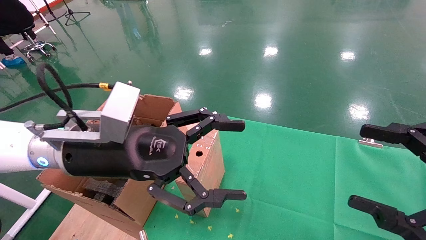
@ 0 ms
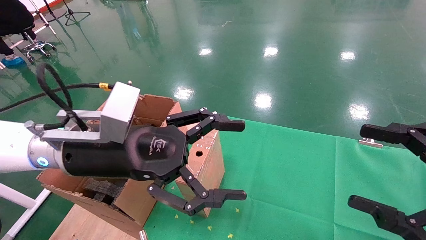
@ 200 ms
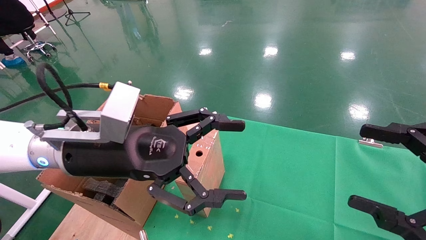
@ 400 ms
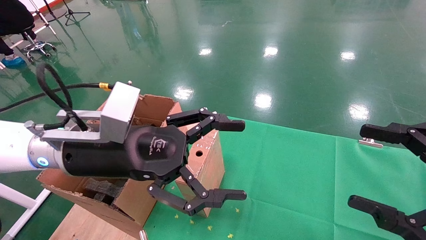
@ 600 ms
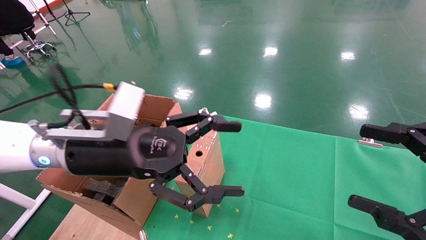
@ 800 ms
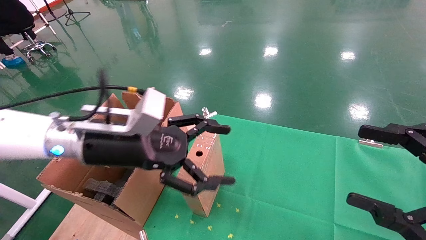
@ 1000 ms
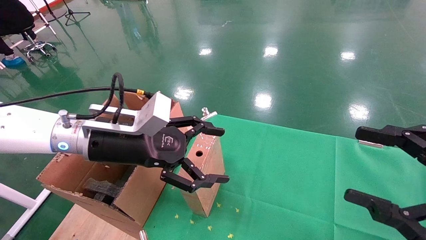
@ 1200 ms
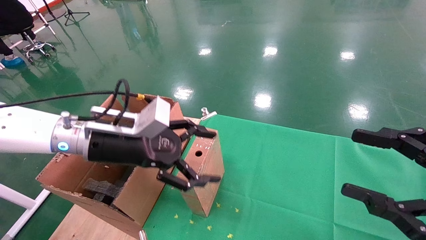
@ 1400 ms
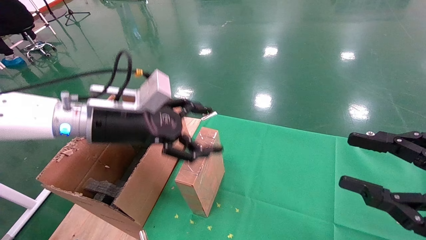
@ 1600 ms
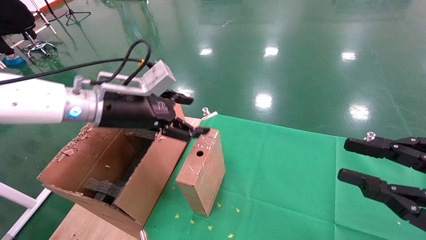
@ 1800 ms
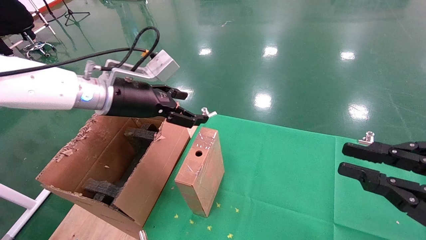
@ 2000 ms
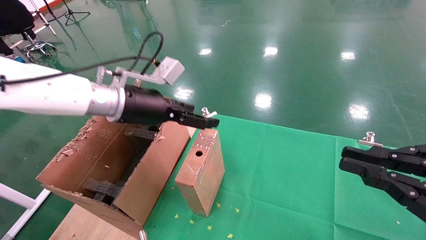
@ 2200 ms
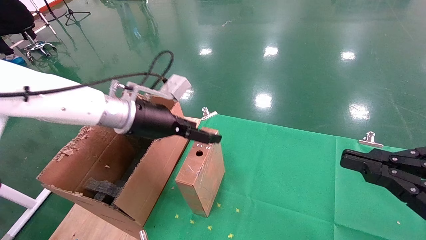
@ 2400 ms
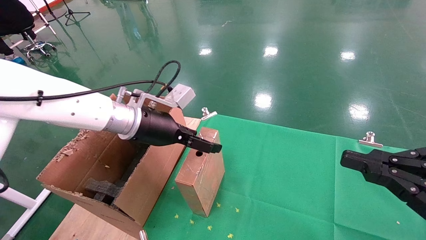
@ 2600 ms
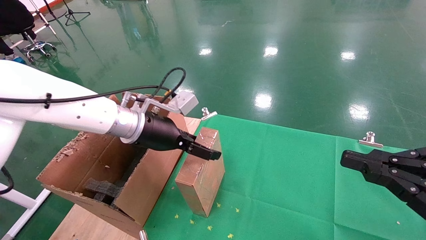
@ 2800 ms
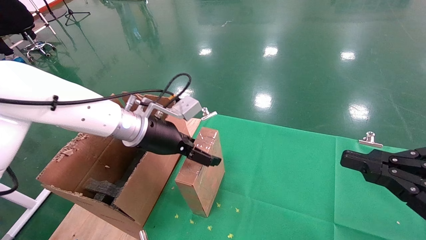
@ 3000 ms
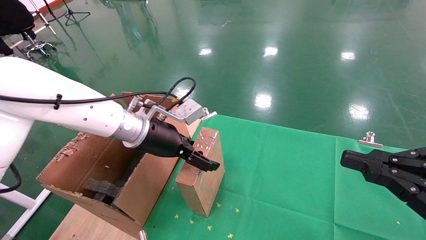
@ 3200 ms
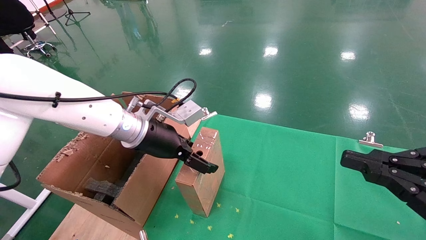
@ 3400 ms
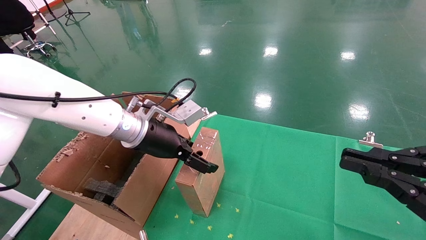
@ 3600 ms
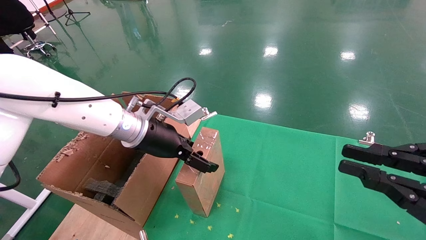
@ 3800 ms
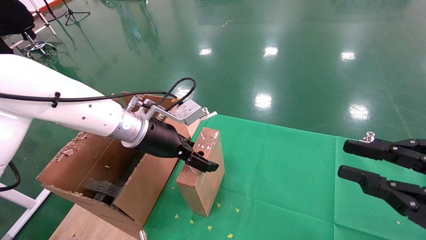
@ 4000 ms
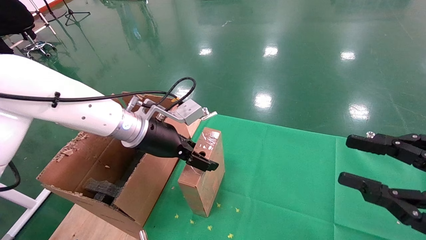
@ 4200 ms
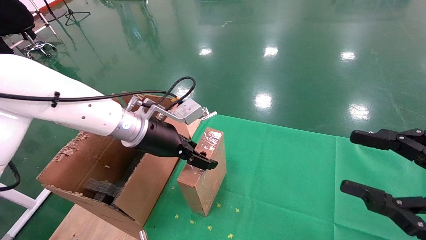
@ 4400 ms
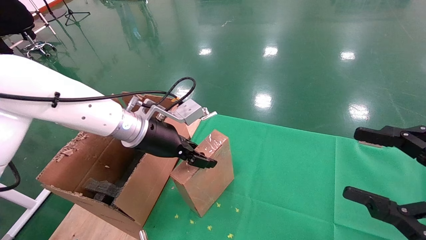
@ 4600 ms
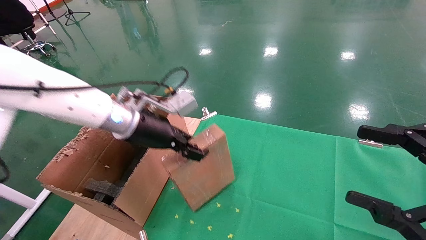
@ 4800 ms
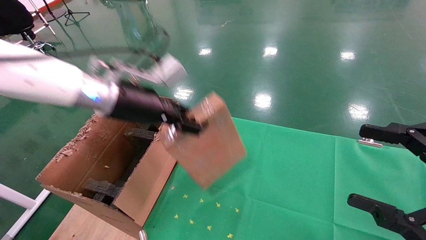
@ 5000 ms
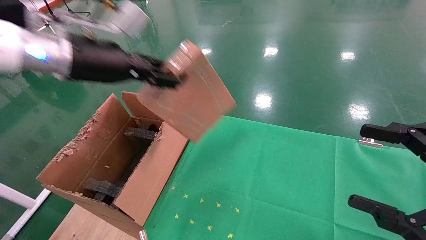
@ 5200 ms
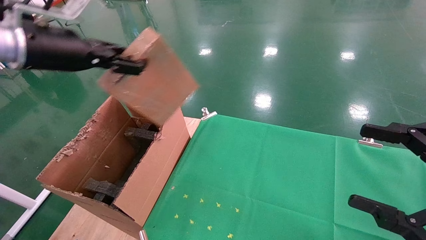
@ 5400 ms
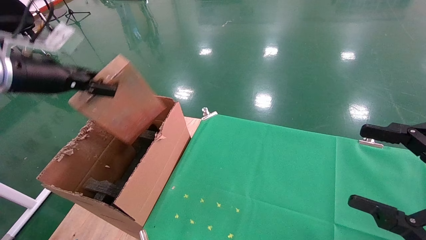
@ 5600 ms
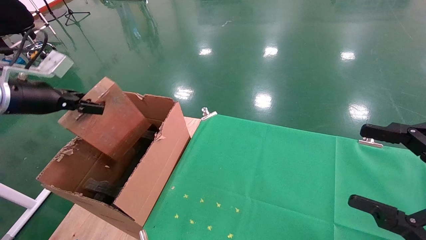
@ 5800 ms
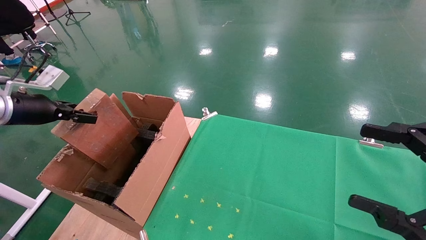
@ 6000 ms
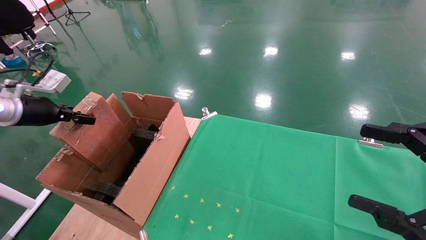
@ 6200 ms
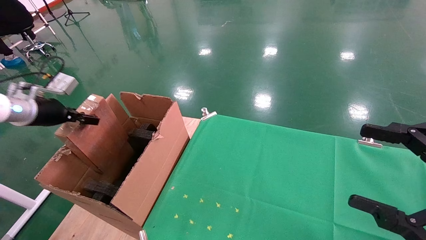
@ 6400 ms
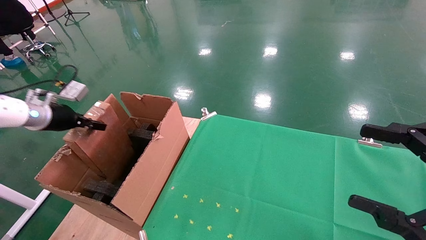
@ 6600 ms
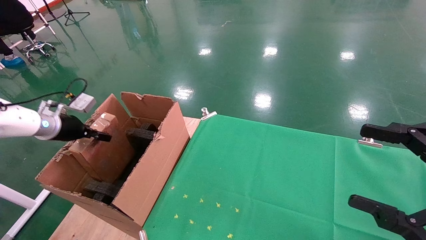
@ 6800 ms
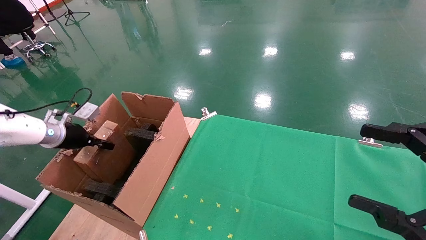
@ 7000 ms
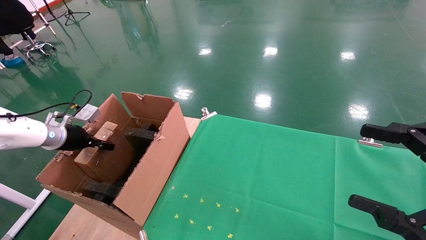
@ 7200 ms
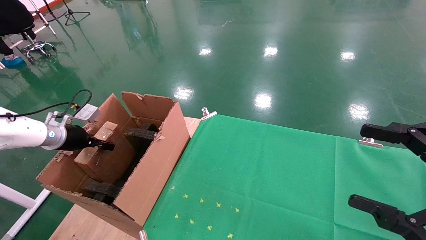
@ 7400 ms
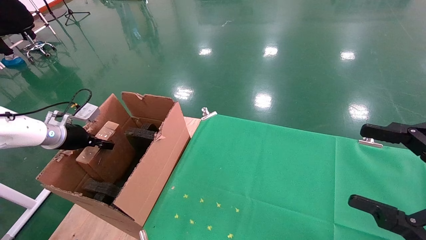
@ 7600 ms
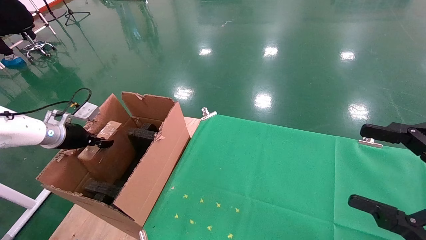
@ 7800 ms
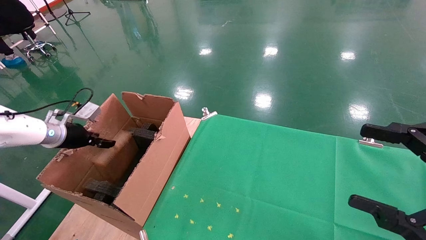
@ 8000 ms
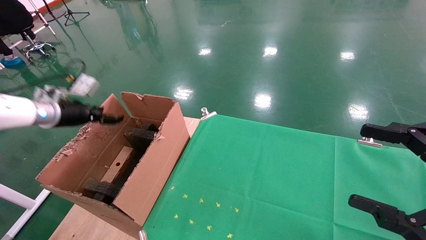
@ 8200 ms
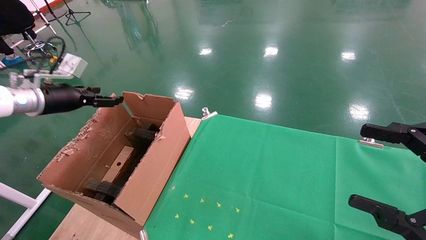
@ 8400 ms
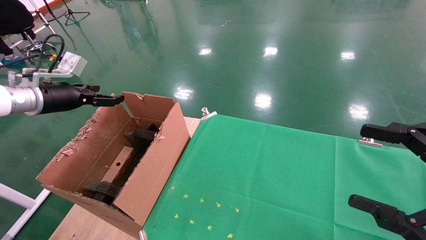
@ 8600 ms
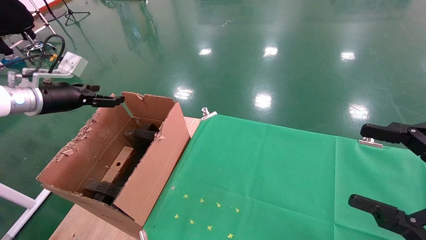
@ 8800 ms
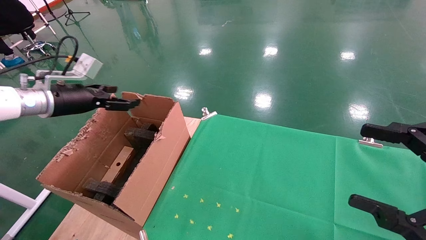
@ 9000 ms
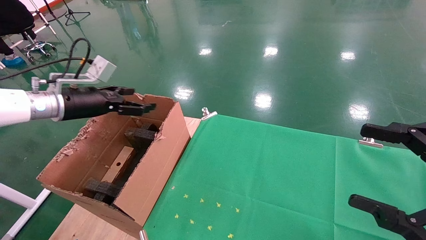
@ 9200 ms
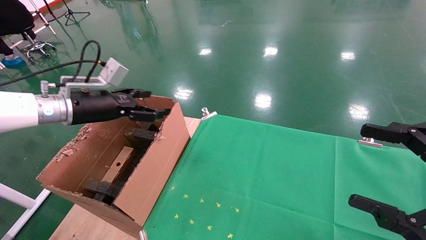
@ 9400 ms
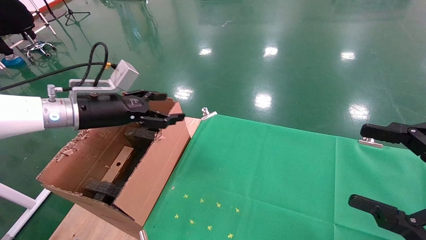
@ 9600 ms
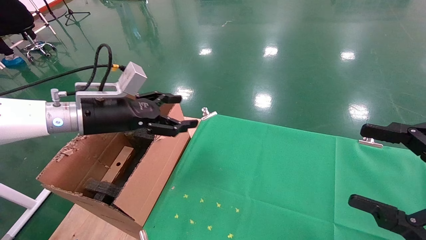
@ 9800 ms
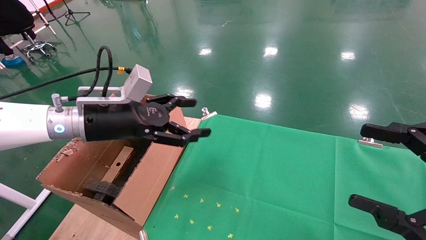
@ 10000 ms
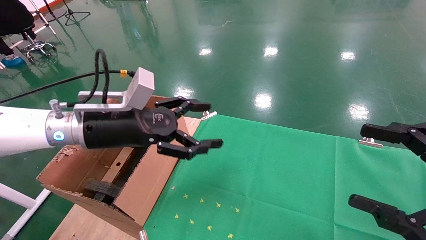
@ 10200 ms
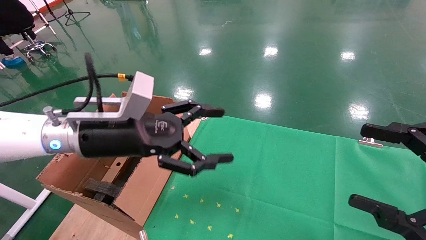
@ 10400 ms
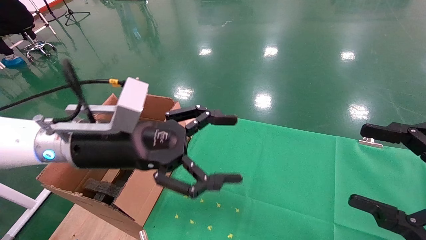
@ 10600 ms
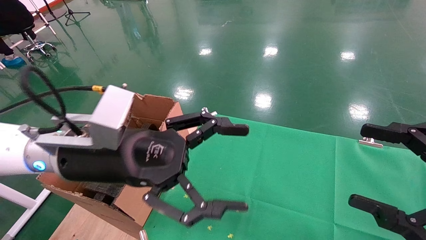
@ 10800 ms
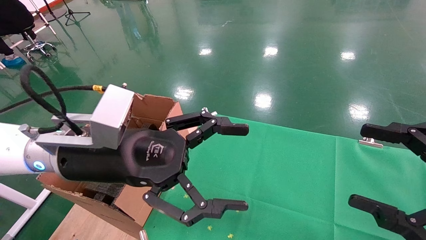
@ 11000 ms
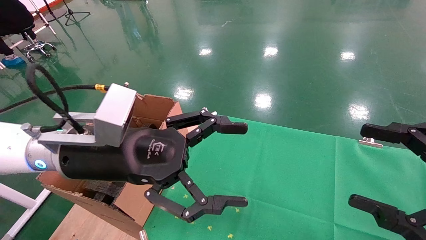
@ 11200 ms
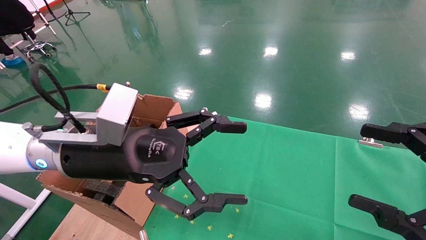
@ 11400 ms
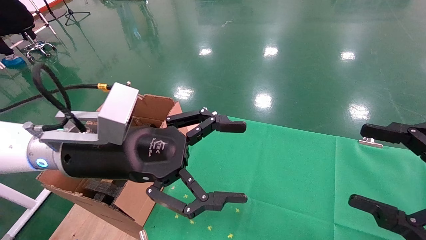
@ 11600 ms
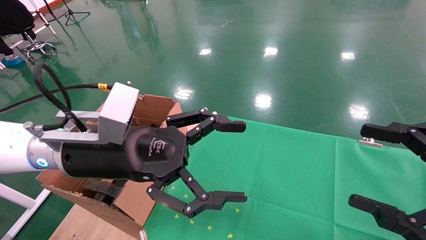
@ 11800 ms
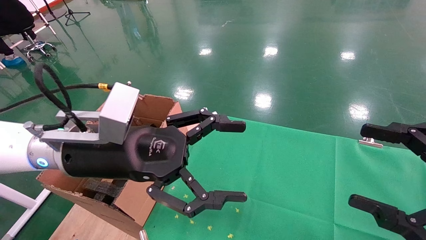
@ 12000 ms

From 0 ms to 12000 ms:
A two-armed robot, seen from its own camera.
Task of the whole recording: using a robotic arm to pick up a cardboard box and palace it the carton.
Step, from 1200 ms to 4600 ms: Pick up the mouse and the power cord paper box.
Step, from 4800 ms to 7800 ms: Place the mouse and the power cord paper box into the container.
From 0 ms to 1600 ms: The left gripper goes roughly 5 cm forward.
From 1600 ms to 3000 ms: The right gripper closes. Meanwhile the left gripper heads forward, covering some 5 cm.
From 3000 ms to 4400 ms: The left gripper closes. Meanwhile the right gripper opens its fingers.
From 4400 ms to 6000 ms: The right gripper opens up; the left gripper heads to the left, covering roughly 30 cm, and closes.
From 6000 ms to 7600 ms: The left gripper travels downward and forward by approximately 15 cm.
From 7600 ms to 9000 ms: The left gripper goes roughly 15 cm upward and to the right, and opens up.
From 9000 ms to 10400 ms: The left gripper travels to the right and backward by about 20 cm.
From 10400 ms to 12000 ms: The grippers stay close to where they were, moving slightly.

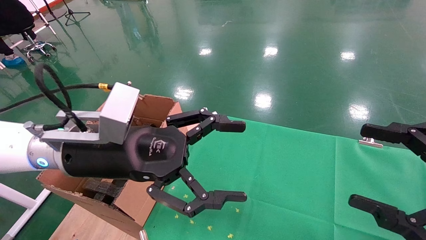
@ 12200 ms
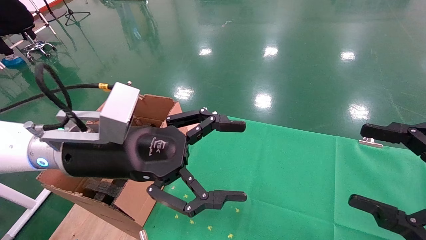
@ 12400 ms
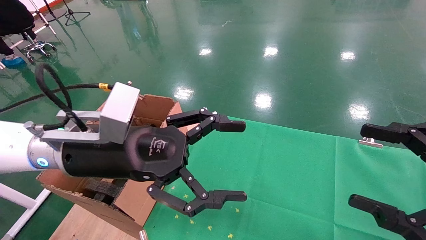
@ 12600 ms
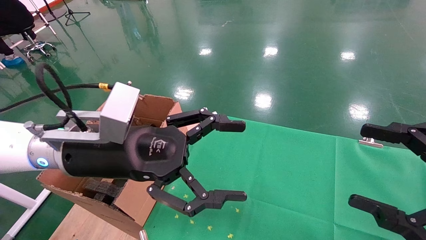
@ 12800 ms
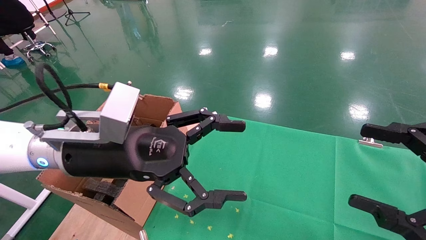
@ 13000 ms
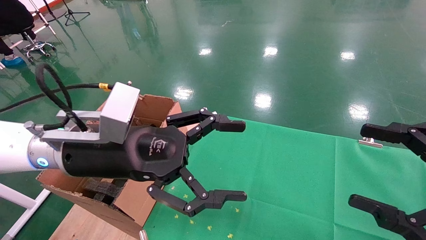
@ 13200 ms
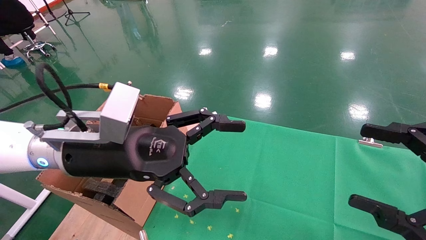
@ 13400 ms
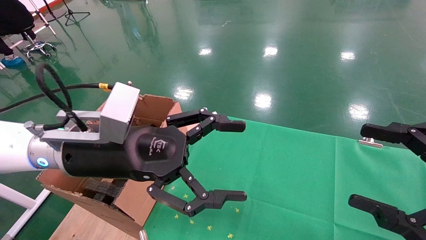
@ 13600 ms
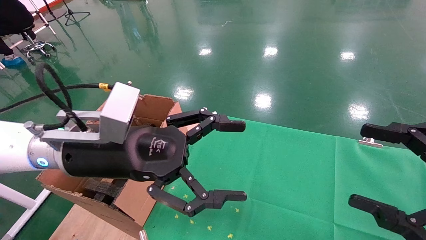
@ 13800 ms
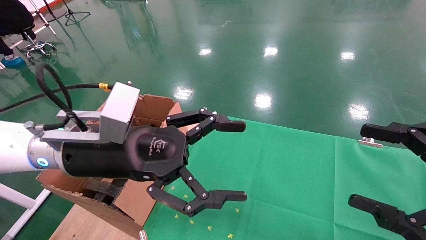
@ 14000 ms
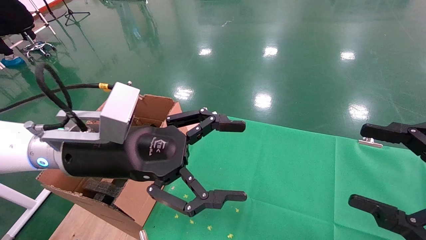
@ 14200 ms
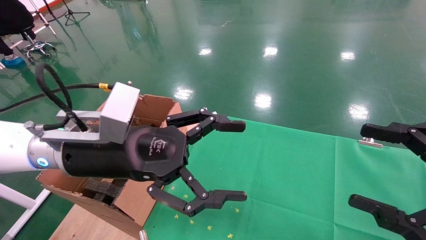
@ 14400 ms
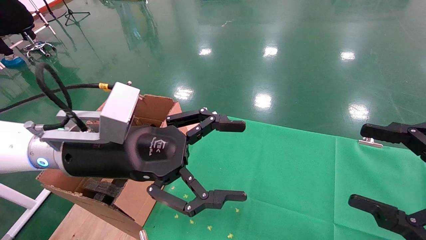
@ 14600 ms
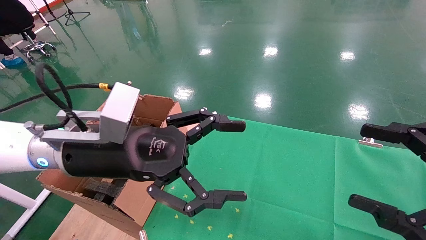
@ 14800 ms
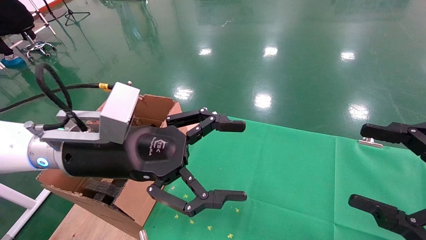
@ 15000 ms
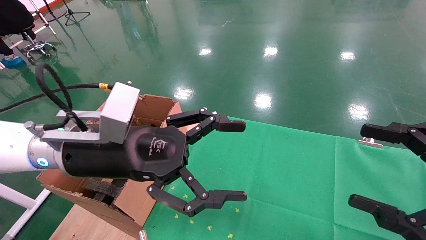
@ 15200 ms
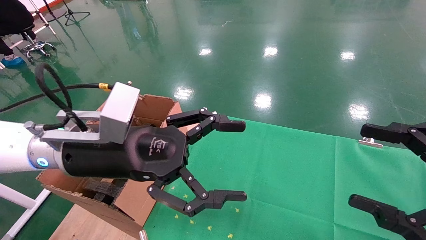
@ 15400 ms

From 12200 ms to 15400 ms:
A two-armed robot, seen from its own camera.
Task of the whole recording: using a robotic arm to pick up a cardboard box and palace it the carton.
From 12200 ms to 15400 ms: Neither gripper changes place.
